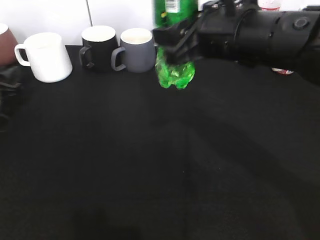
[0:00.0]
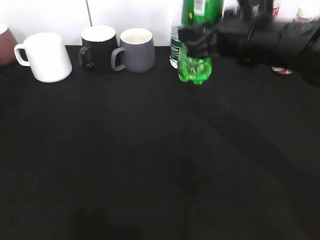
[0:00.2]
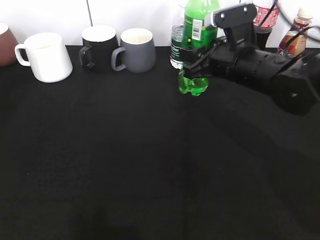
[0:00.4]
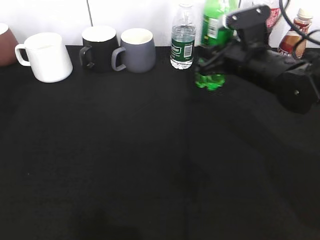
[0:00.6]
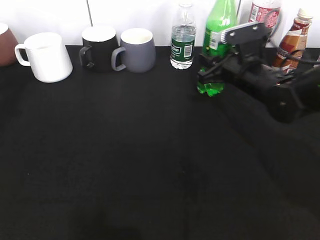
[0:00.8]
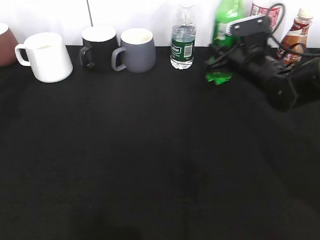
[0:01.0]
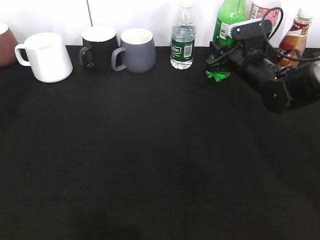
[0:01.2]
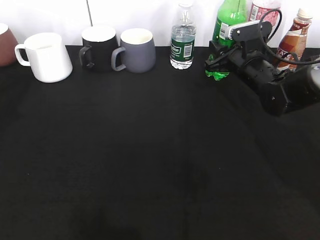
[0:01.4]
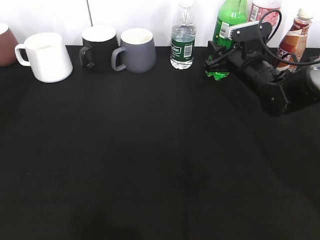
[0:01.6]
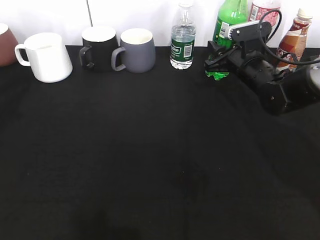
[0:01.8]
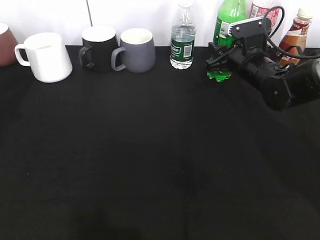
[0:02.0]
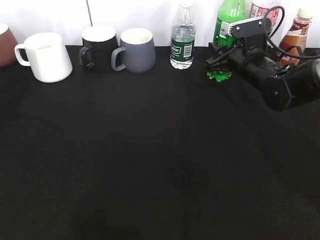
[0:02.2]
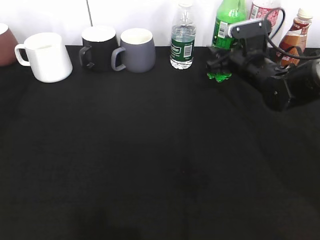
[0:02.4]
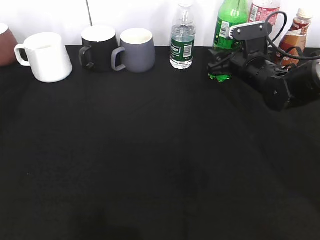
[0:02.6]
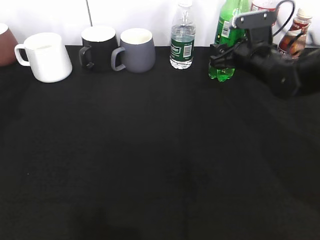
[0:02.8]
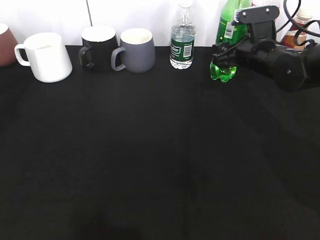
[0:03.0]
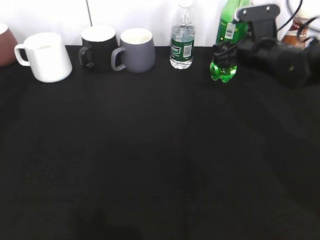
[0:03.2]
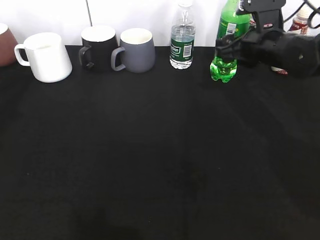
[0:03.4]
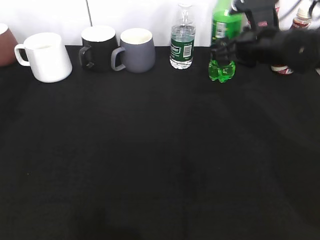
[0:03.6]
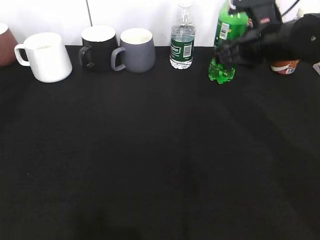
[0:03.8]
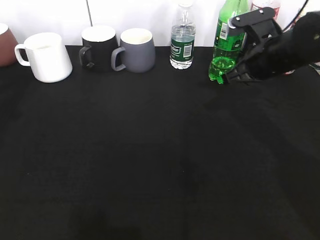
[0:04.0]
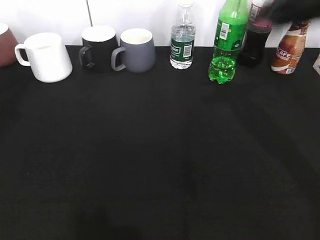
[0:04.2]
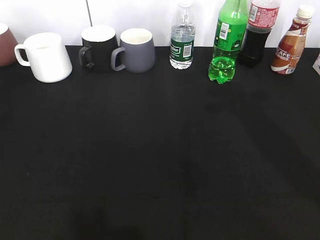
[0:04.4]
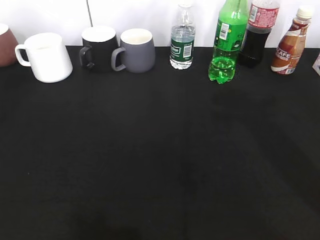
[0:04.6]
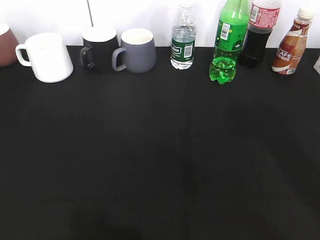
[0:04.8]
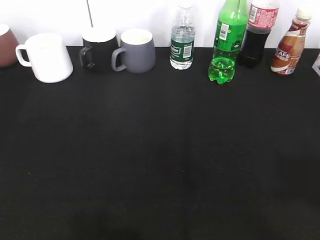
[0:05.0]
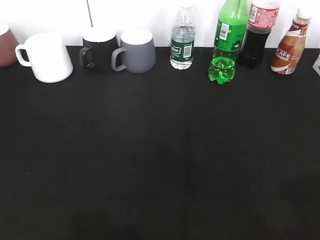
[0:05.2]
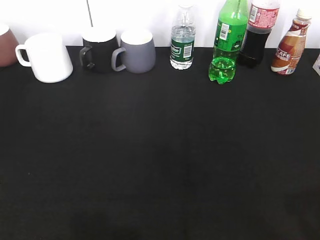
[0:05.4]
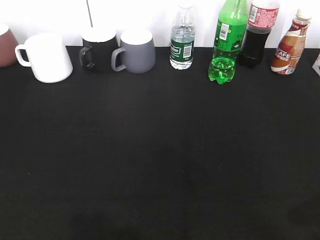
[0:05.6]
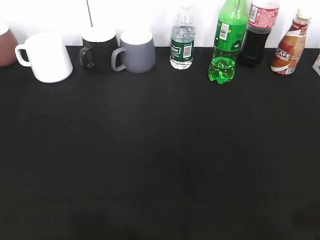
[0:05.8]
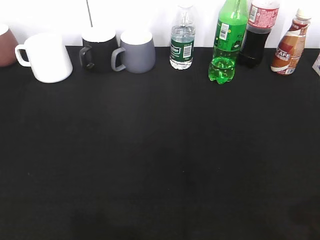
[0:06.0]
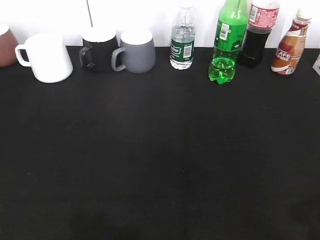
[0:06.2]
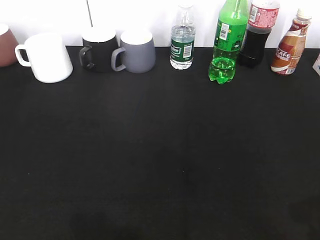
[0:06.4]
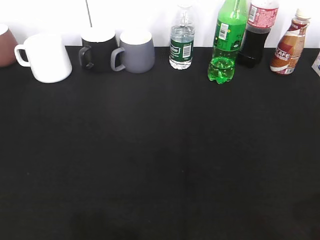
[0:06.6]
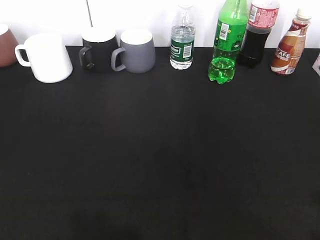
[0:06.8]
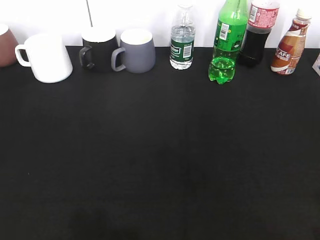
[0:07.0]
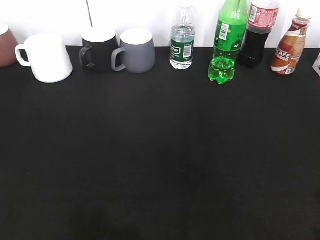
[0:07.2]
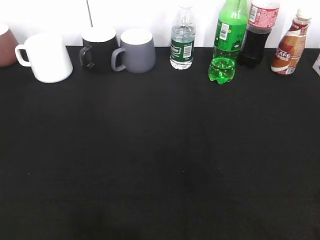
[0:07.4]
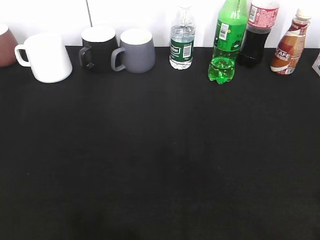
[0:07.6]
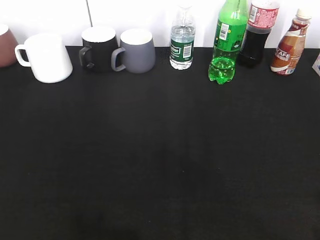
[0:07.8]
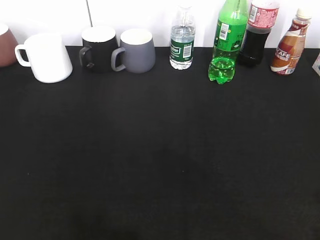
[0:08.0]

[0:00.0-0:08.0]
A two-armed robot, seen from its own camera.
Step, 0:00.2 to 0:04.0: Place the sprite bottle on the table with right gripper.
0:00.0 to 0:01.6: The left gripper shifts some 20 cm upward and backward. Meanwhile the right gripper travels downward, forward and to the right by some 20 cm.
0:01.6 to 0:03.2: The grippers make only small movements.
0:03.2 to 0:04.8: The left gripper goes some 20 cm backward and upward. The right gripper shifts approximately 35 cm upward and backward, and closes up.
0:04.8 to 0:06.4: The right gripper travels downward and backward by roughly 20 cm. Meanwhile the left gripper travels downward and backward by roughly 10 cm, and closes.
